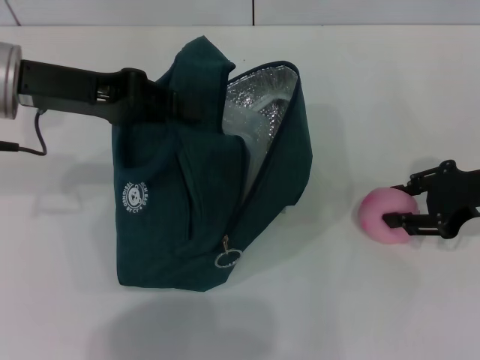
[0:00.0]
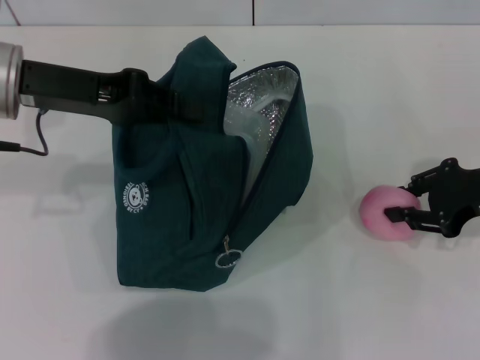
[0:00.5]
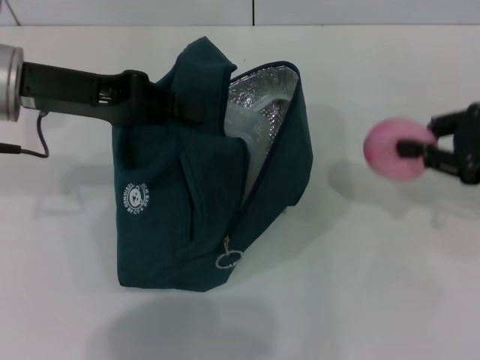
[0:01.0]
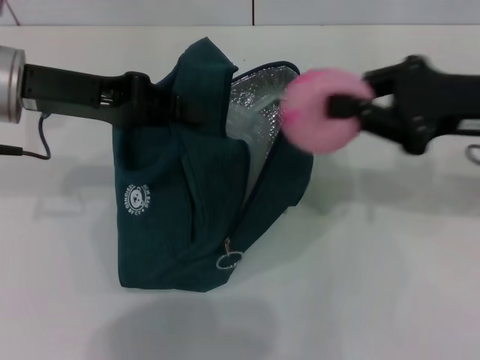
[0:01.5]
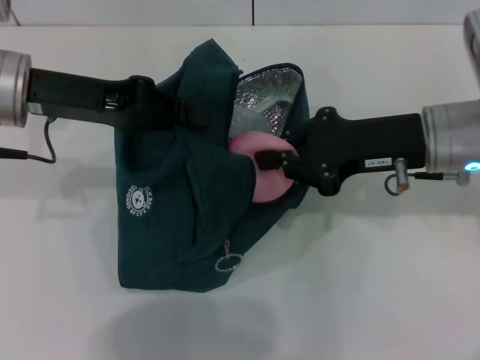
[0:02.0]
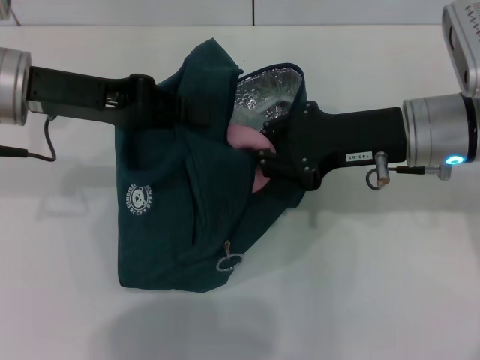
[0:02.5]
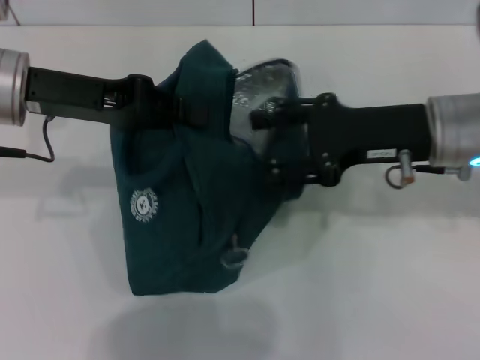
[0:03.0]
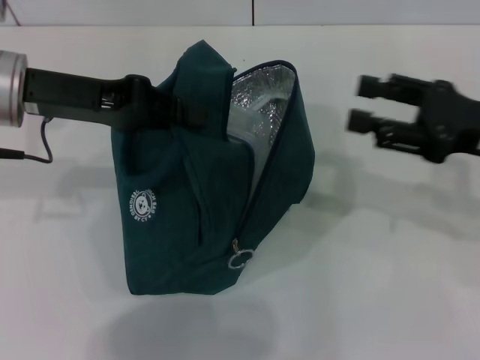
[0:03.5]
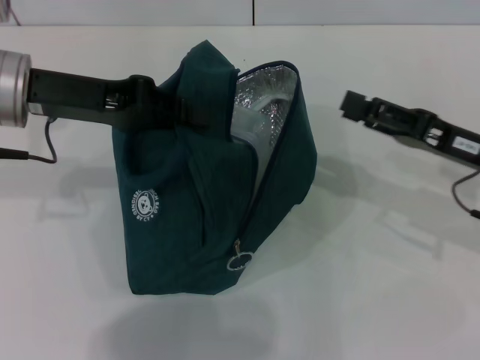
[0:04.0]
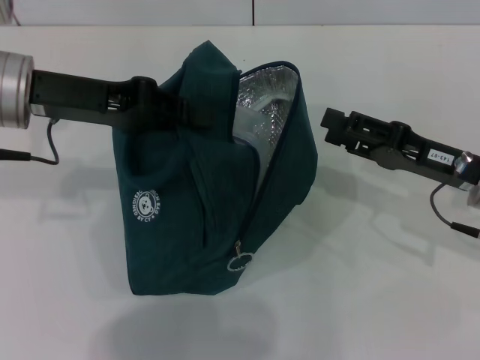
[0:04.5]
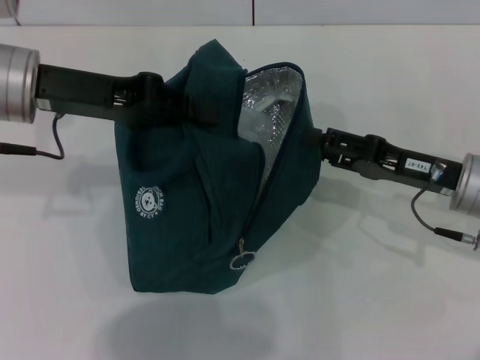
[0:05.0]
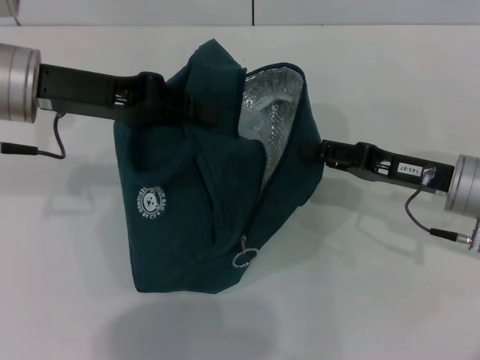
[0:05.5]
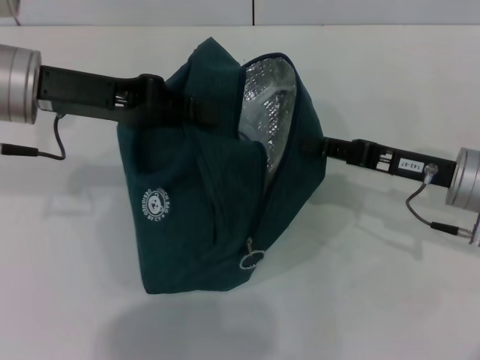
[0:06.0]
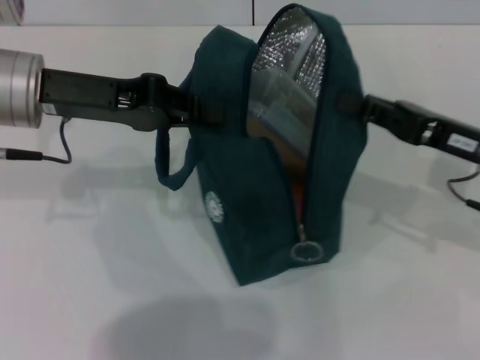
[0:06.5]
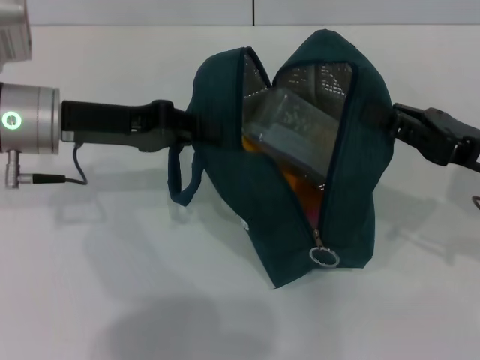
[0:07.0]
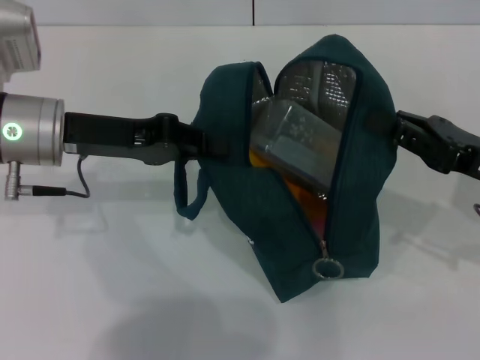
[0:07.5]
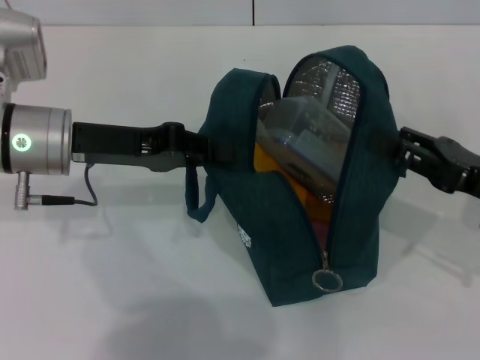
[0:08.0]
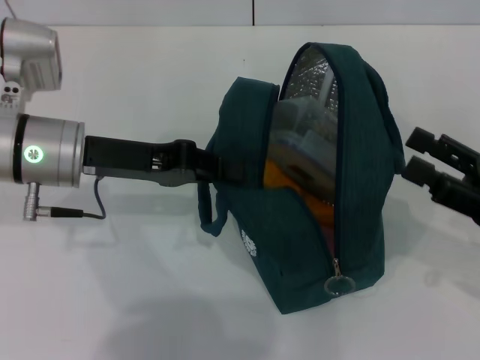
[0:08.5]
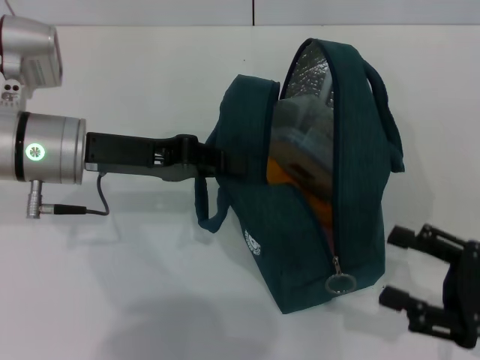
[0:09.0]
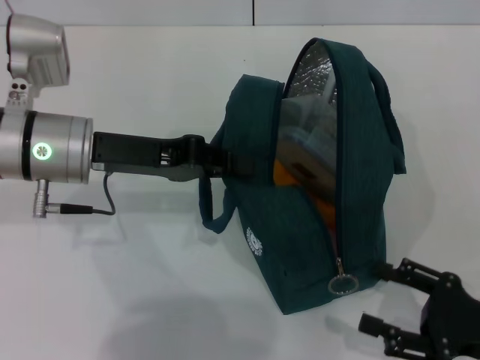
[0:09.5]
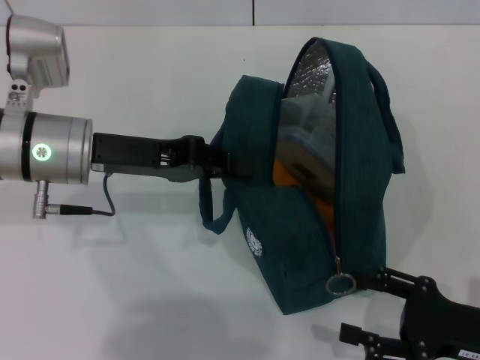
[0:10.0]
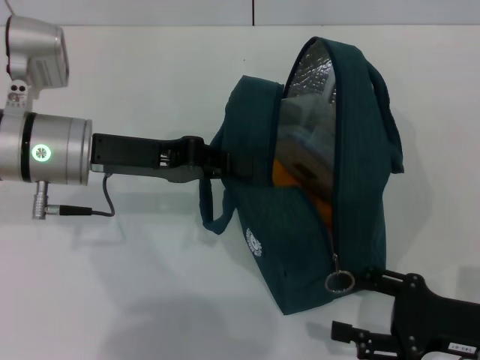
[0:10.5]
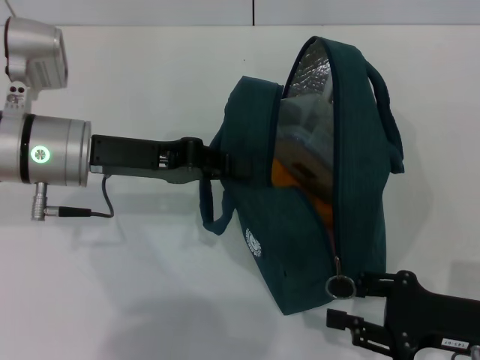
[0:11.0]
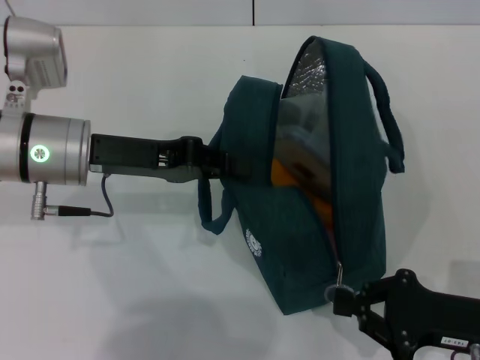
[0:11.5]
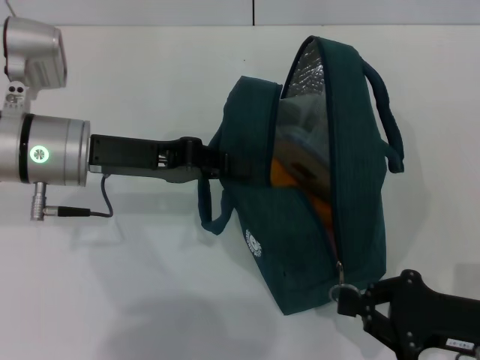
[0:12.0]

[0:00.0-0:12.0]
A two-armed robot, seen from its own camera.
Step, 0:03.5 to 0:08.0: Hold the lunch bag with your right hand.
0:00.0 to 0:02.0: The right gripper heads to the left, covering approximately 10 cm, and closes.
0:02.0 to 0:04.0: The right gripper travels to the right by about 10 cm, and opens up.
0:04.0 to 0:06.0: The right gripper closes.
0:06.0 to 0:08.0: The right gripper shifts about 5 cm to the right. Meanwhile the left gripper shifts some 5 cm downward.
0:08.0 to 0:10.0: The right gripper is displaced backward and downward by roughly 10 cm, and opens its fingers.
0:10.0 to 0:12.0: The right gripper closes its fingers.

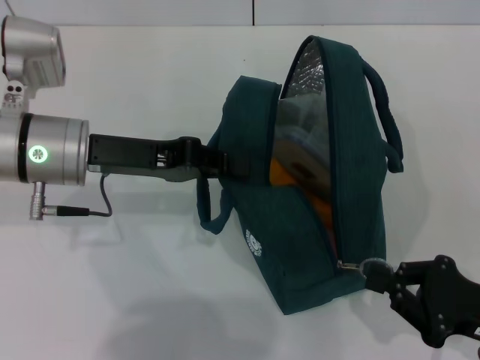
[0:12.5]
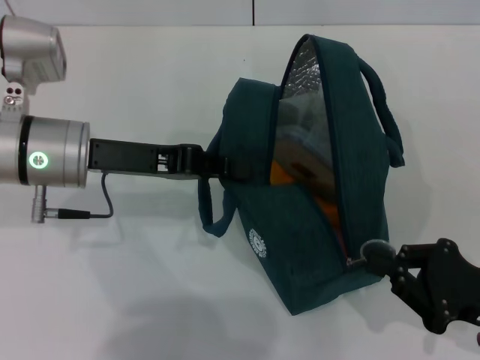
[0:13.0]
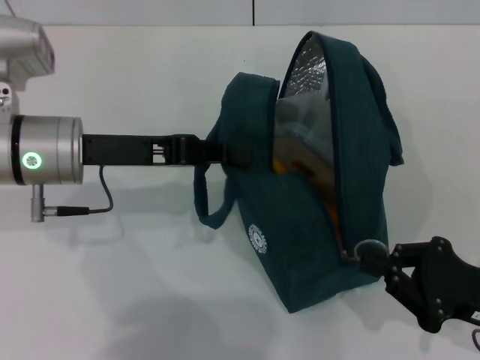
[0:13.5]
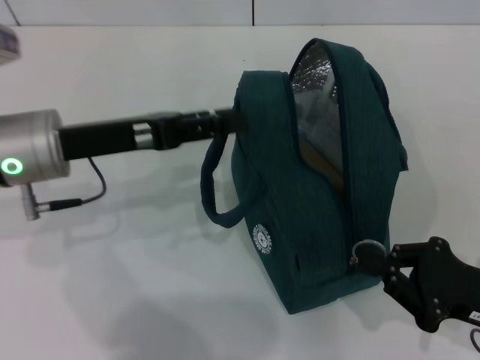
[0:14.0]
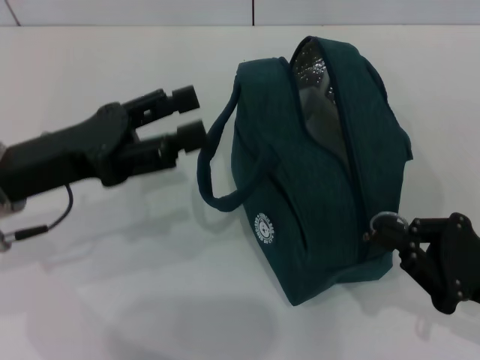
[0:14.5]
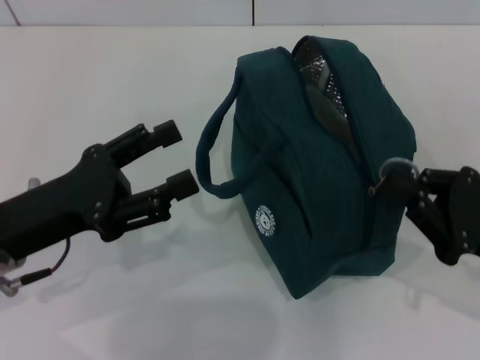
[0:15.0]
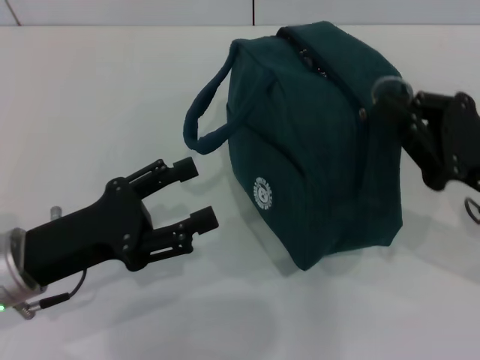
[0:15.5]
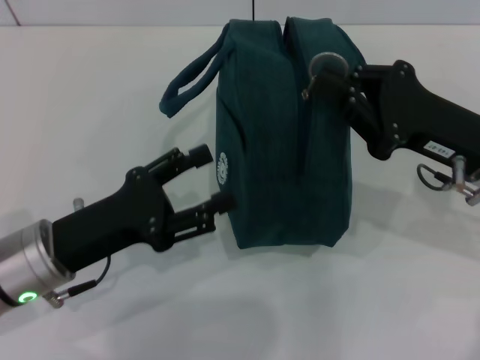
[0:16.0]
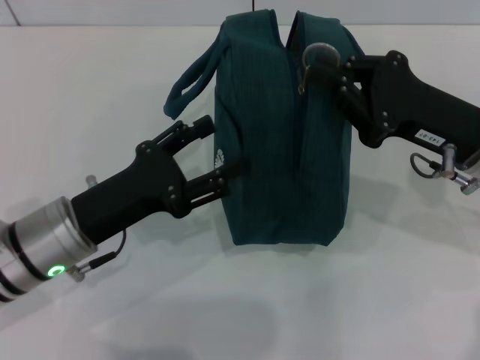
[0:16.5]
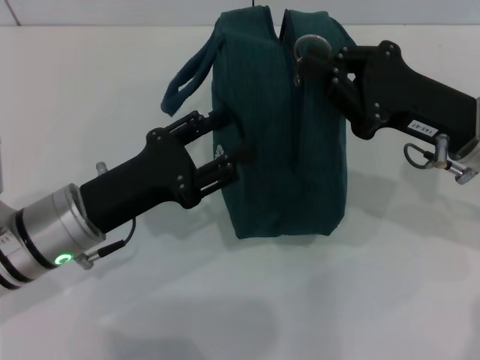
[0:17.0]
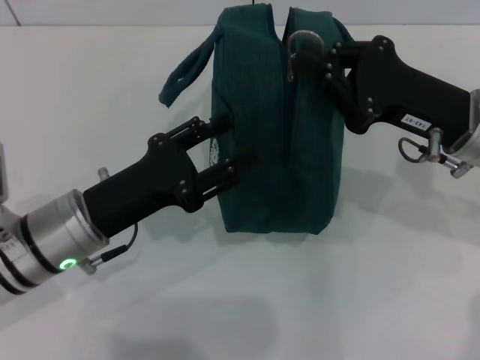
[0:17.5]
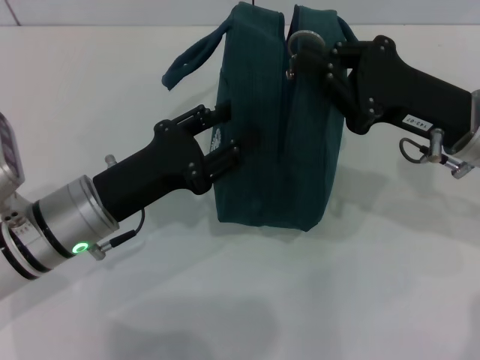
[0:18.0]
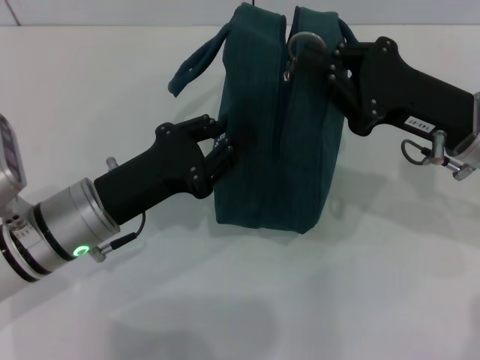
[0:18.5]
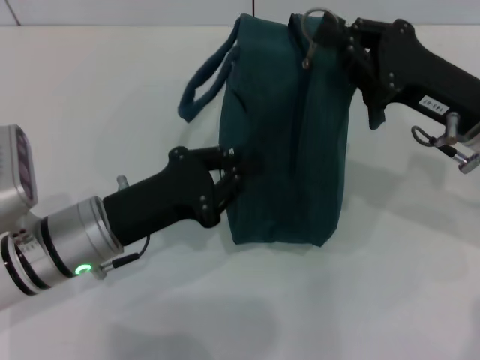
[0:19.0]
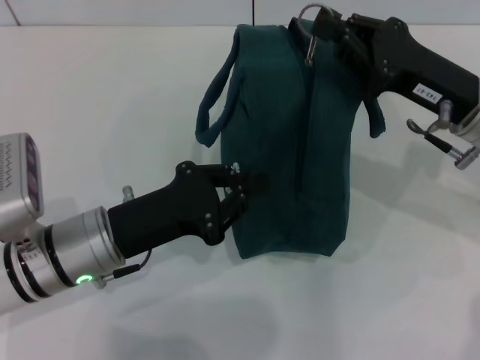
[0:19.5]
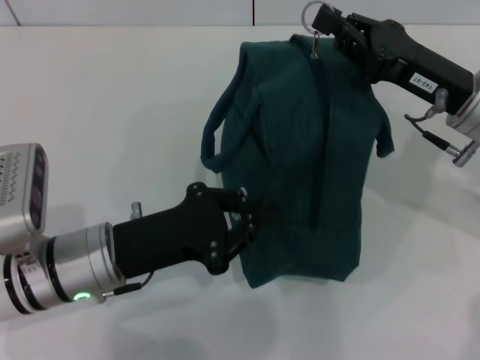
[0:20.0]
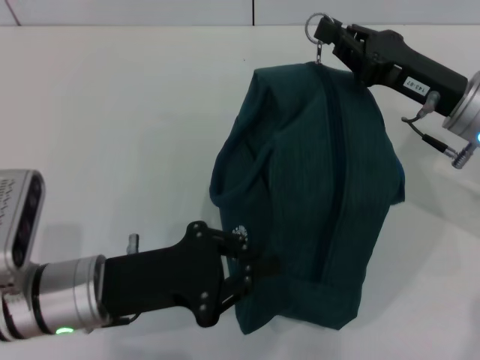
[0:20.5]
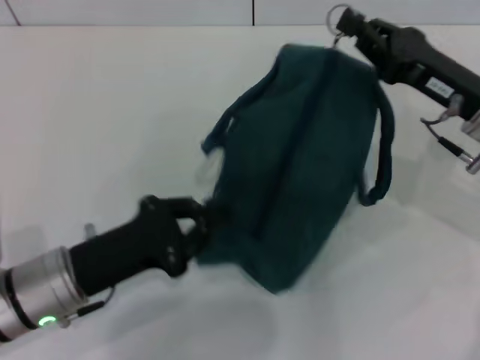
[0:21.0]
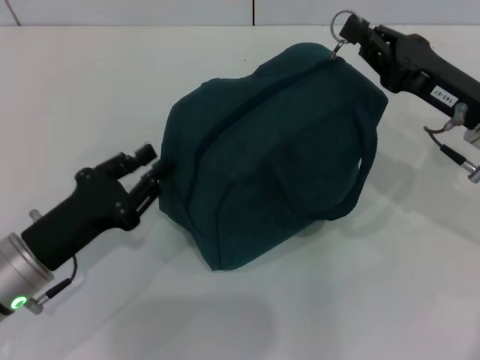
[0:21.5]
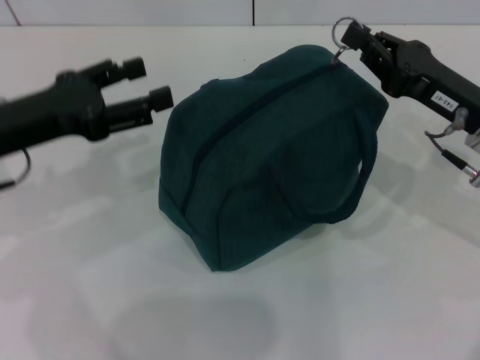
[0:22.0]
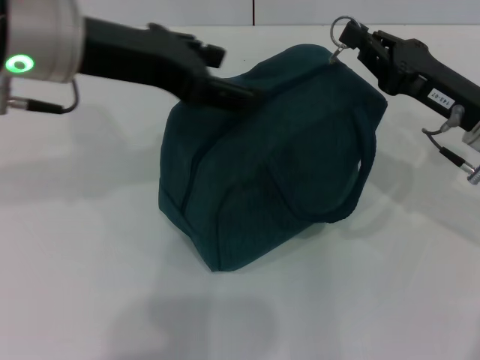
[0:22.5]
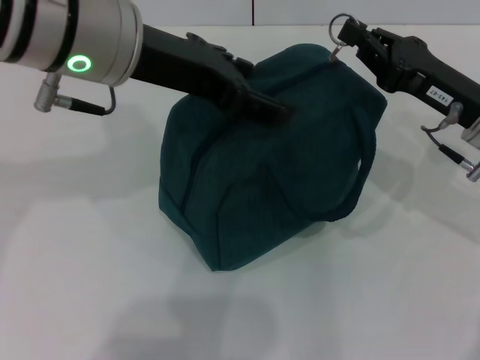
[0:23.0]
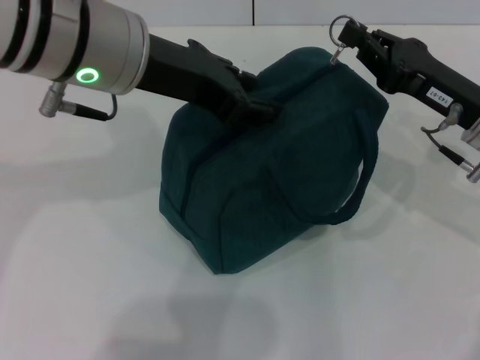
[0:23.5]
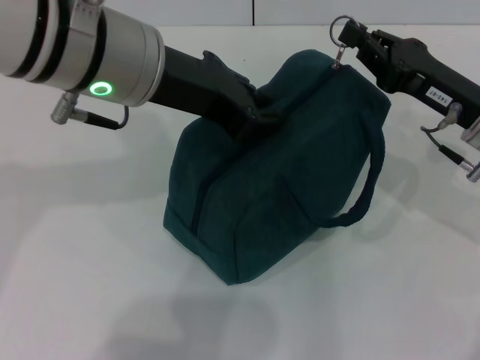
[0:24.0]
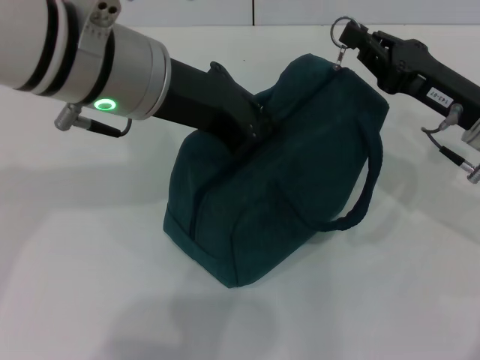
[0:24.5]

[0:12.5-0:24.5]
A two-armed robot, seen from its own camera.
0:12.5 to 0:14.5: The left gripper moves backward, some 5 cm, and opens up.
0:14.5 to 0:16.5: The left gripper shifts some 10 cm downward. Meanwhile the right gripper moves forward, upward and to the left, roughly 15 cm.
0:16.5 to 0:18.5: The left gripper closes its fingers.
0:20.5 to 0:22.5: The left gripper shifts some 25 cm upward and forward, and opens its fingers.
0:22.5 to 0:24.5: The left gripper is displaced to the right by some 5 cm, and closes its fingers.

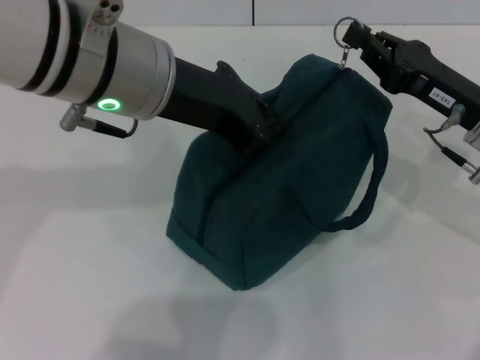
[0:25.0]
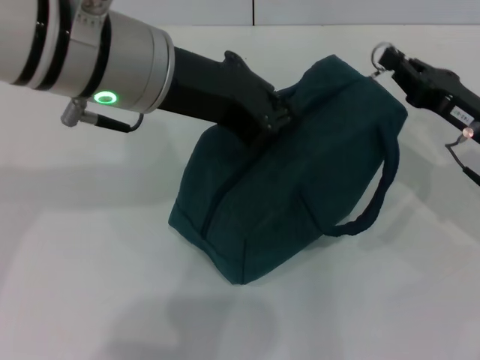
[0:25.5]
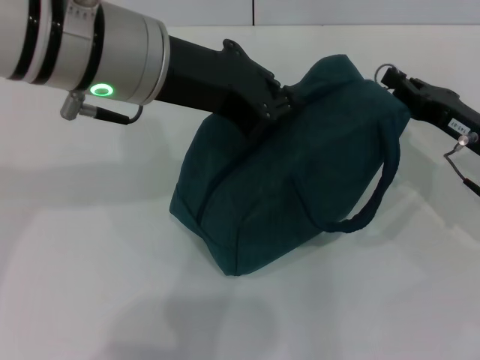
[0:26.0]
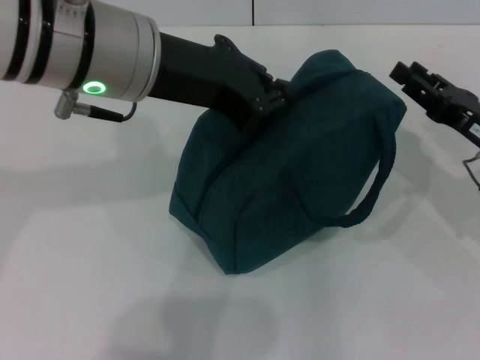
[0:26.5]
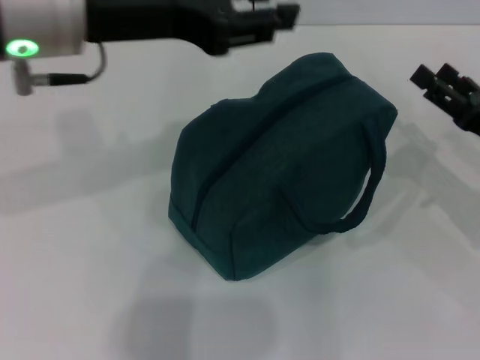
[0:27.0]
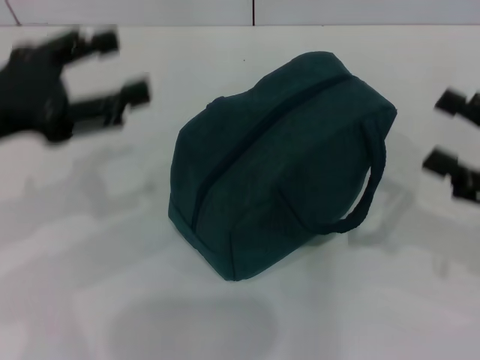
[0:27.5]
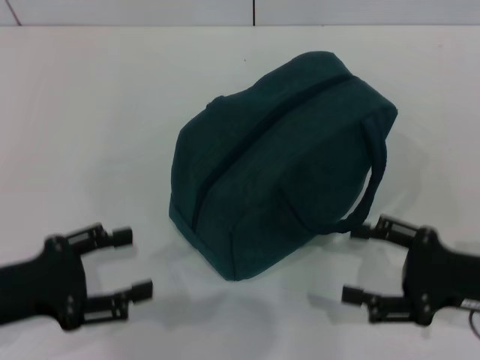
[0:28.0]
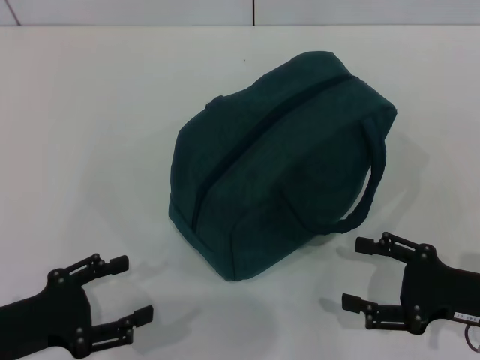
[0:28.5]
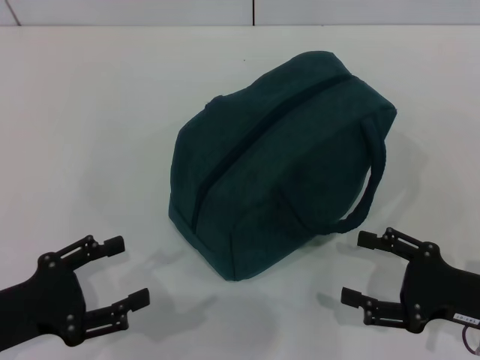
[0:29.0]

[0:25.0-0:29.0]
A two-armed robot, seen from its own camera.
0:25.0 to 0:27.0: The left gripper heads to the left, covering about 5 cm, and opens its fingers; the right gripper is displaced to the right by roughly 5 cm, and opens.
0:27.0 to 0:29.0: The right gripper goes roughly 10 cm backward. The left gripper travels downward, backward and to the left by some 30 cm, and opens its fingers.
